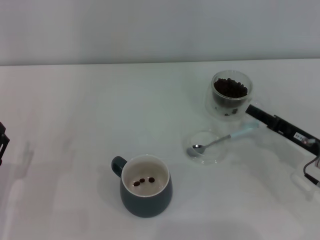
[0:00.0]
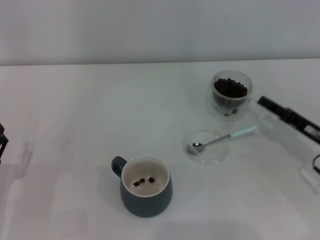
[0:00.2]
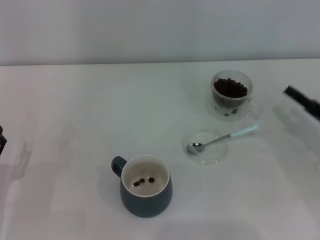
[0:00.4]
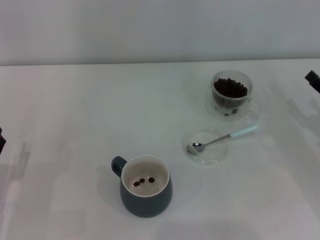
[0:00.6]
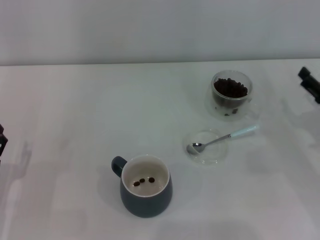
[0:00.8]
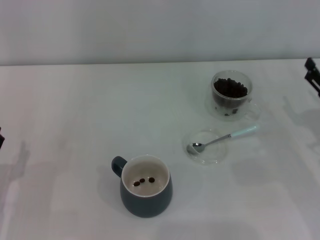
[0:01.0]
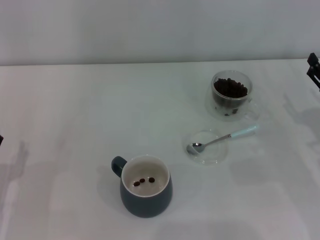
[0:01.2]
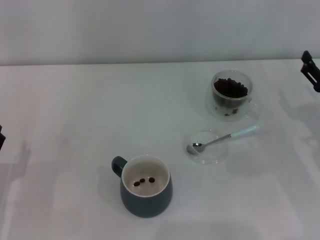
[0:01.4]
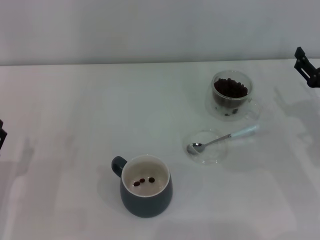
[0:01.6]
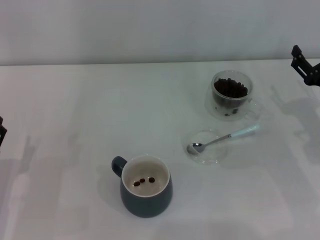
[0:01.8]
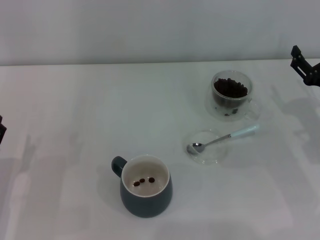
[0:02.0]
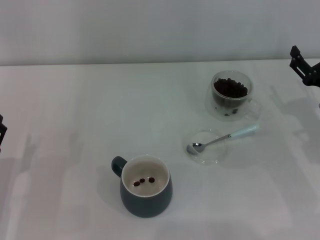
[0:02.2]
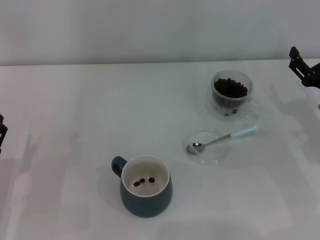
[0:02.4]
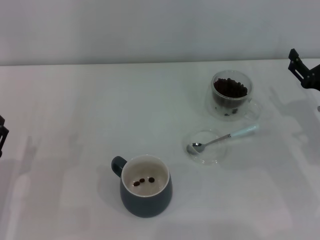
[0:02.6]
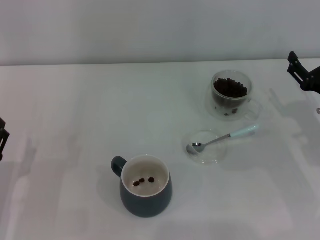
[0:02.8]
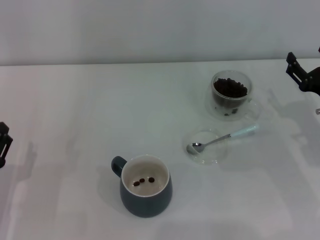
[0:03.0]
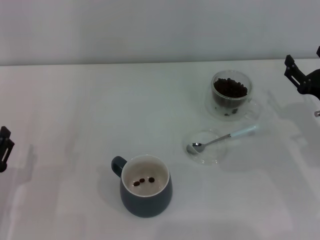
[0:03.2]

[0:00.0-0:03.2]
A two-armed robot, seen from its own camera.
Task of the whole recording: Use a blue spoon to take out the coffee beans from the glass and pour them into the gray cup.
0:00.0 to 0:01.6: The right gripper opens up.
0:01.6 to 0:03.2: The two grippers keep their place.
